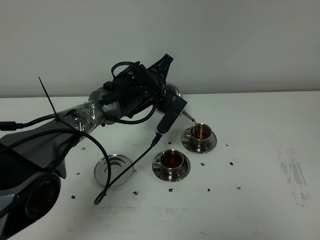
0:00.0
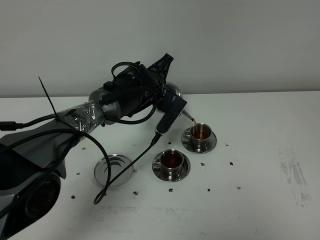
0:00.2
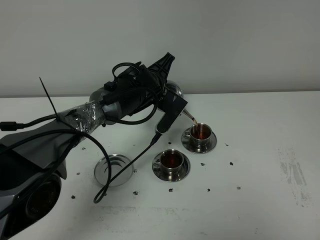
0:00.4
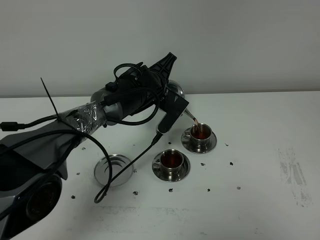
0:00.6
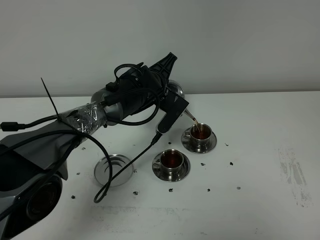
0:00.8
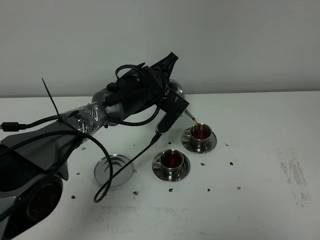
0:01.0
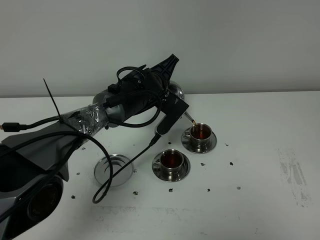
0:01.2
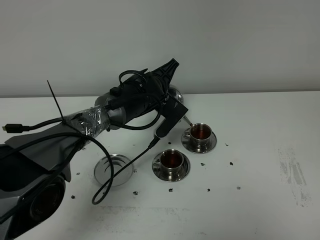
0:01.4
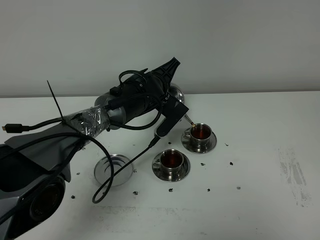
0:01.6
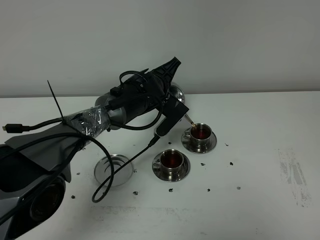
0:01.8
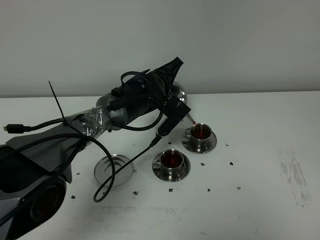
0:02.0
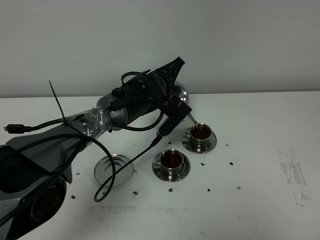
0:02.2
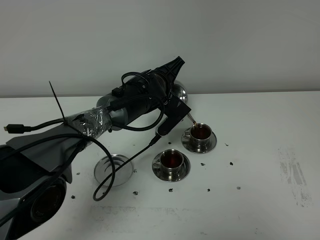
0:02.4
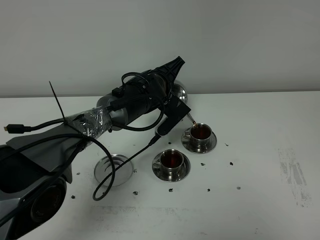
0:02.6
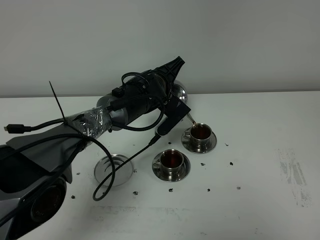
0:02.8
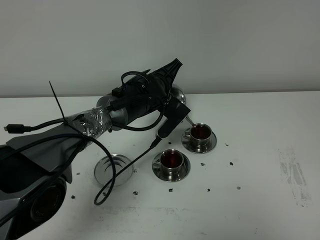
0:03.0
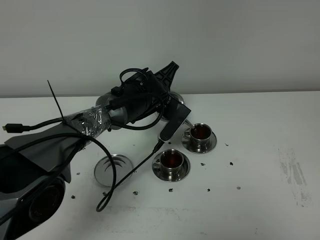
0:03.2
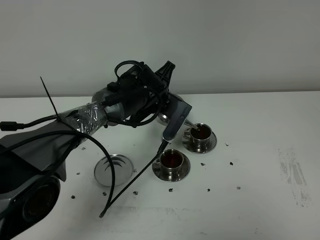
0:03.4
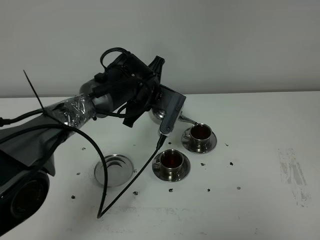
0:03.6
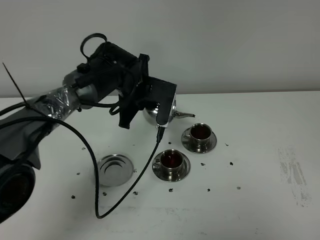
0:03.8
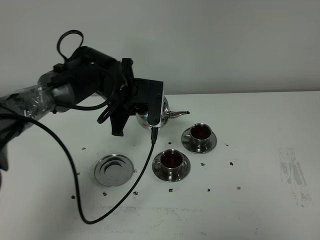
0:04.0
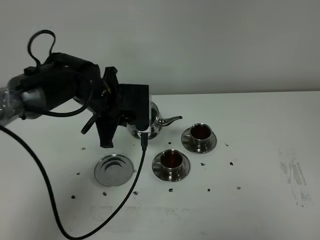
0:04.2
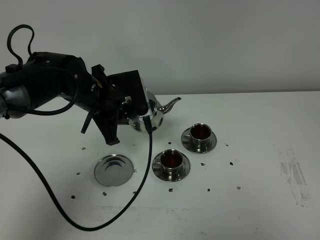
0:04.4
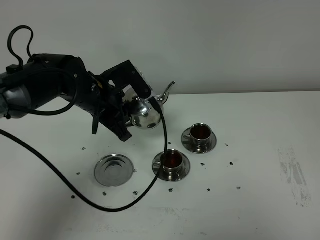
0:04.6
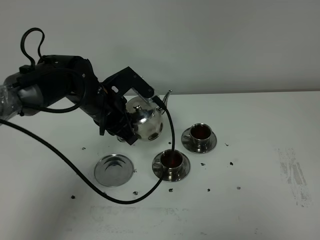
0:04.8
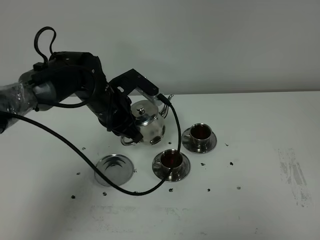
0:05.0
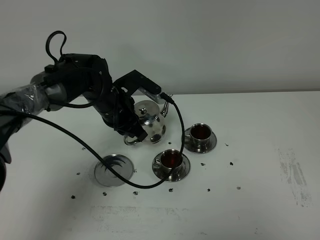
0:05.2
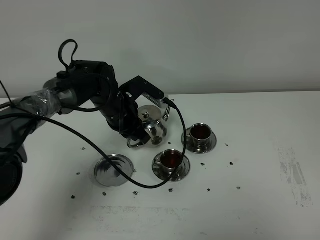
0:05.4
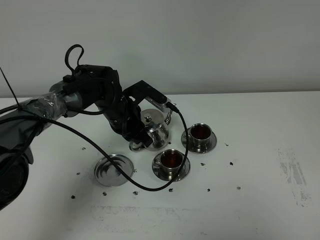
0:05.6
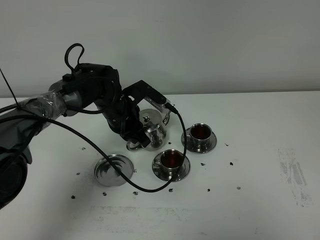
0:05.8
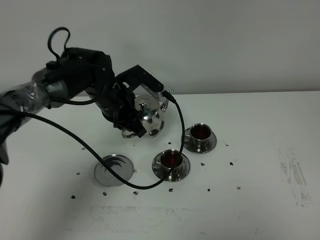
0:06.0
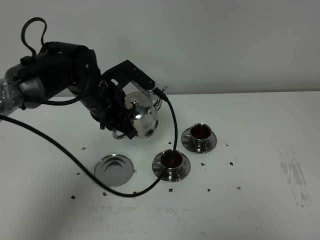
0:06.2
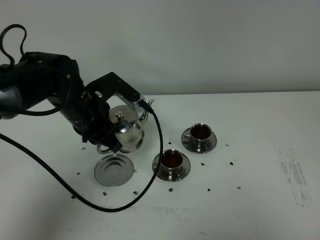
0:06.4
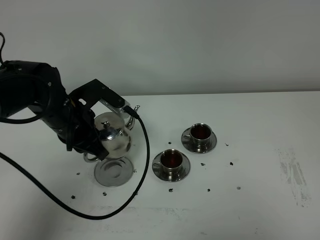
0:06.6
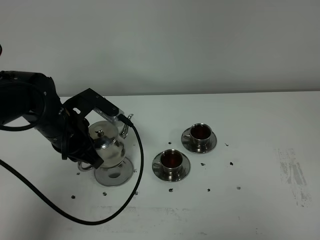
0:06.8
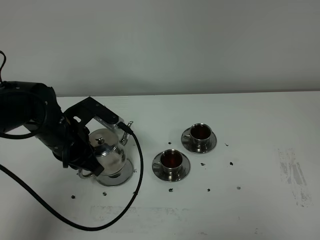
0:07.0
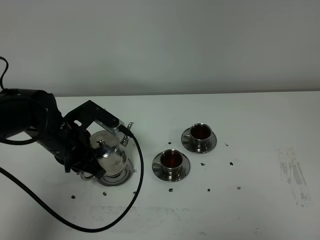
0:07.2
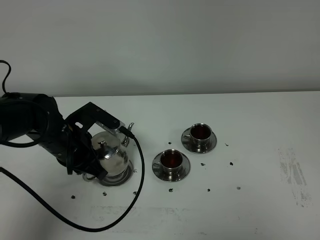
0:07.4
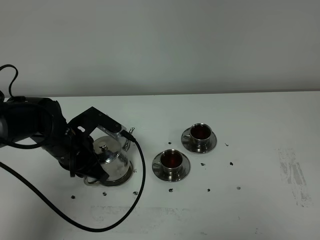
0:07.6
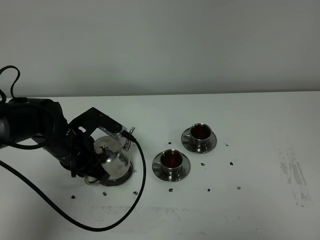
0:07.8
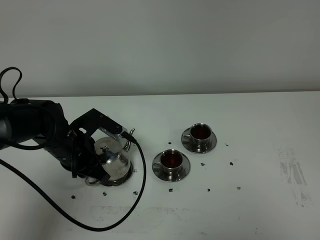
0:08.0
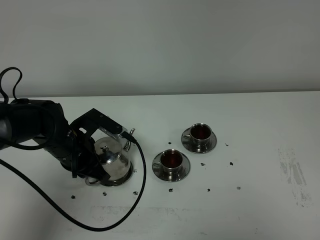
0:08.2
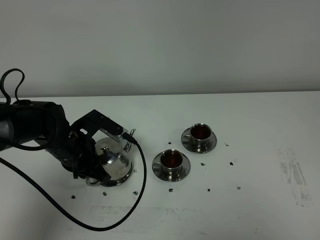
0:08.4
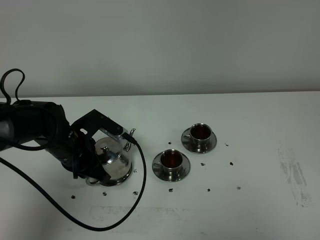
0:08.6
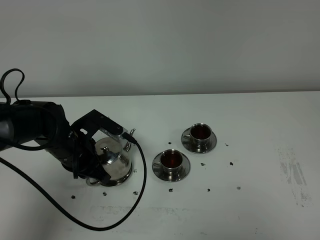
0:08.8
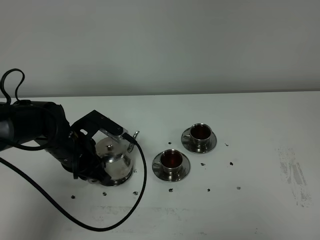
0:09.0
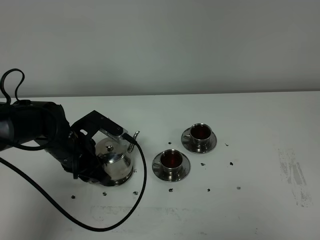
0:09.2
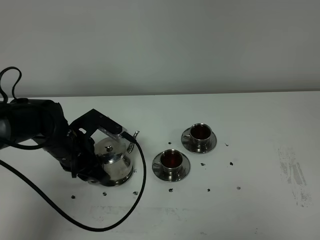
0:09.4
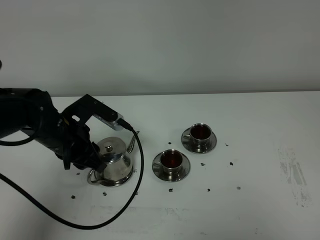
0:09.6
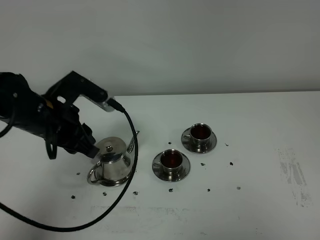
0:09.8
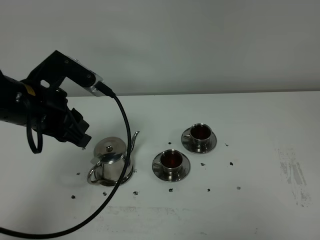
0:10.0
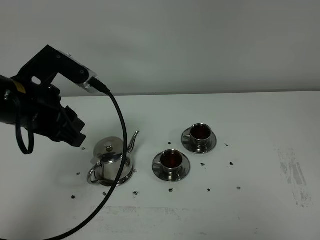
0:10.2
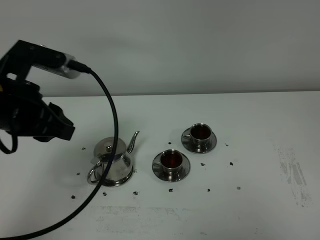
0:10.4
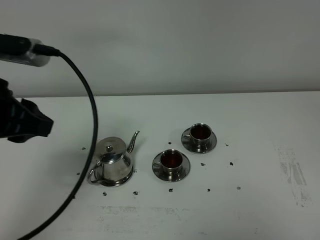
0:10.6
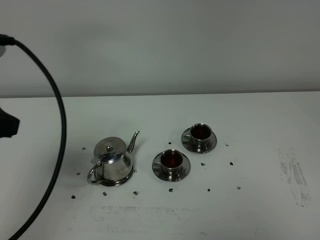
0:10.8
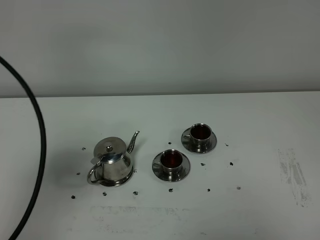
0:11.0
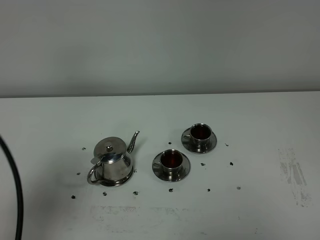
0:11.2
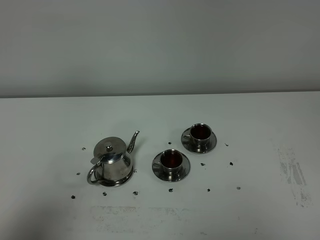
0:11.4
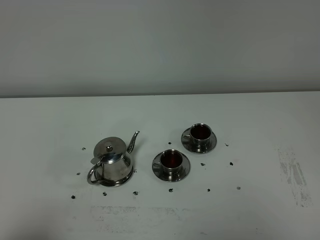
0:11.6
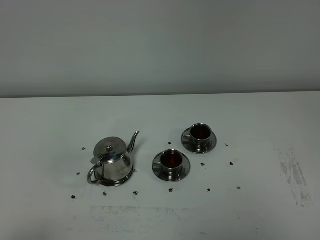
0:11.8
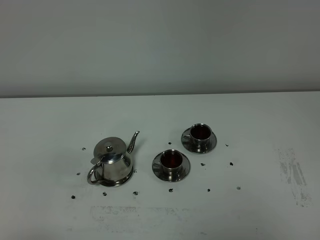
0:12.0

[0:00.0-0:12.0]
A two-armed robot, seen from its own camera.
Task of the whole recording: grasp the stainless steel teapot and pour the tea into the two stainless steel teacups one by one, put the stainless steel teapot back in its original place.
Step, 0:00.0 to 0:03.4: Pour tea into the teacup with the left gripper.
0:00.0 to 0:01.6: The grippers move only a little.
0:01.6 to 0:03.0: The two grippers keep their place.
0:03.0 to 0:04.4: The left gripper is displaced to the left, backward and upward by about 15 cm.
0:06.0 to 0:07.6: The left gripper heads backward and to the left, covering roughly 10 cm.
0:07.6 to 0:09.0: Both grippers stay put.
0:09.0 to 0:10.4: The left gripper heads upward and backward, covering about 20 cm.
0:10.4 to 0:12.0: The left gripper travels backward by approximately 25 cm.

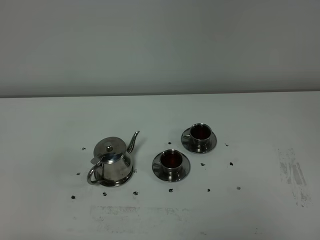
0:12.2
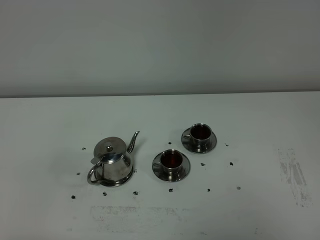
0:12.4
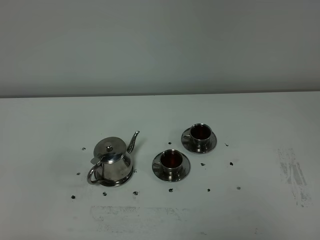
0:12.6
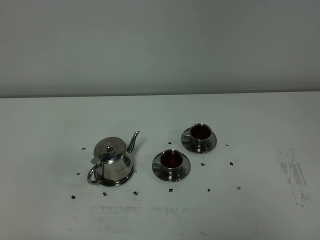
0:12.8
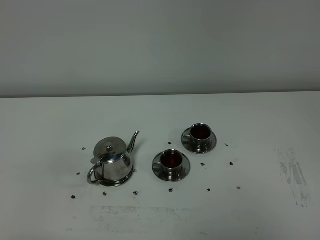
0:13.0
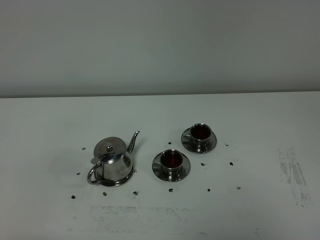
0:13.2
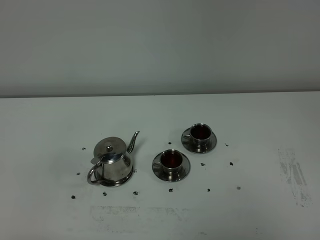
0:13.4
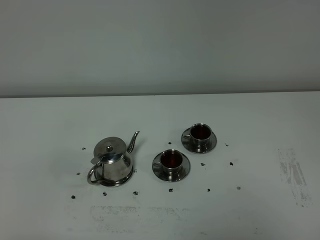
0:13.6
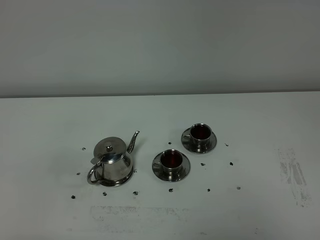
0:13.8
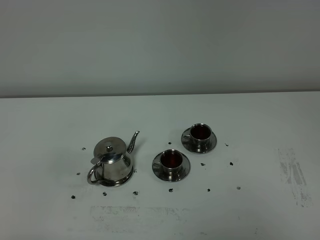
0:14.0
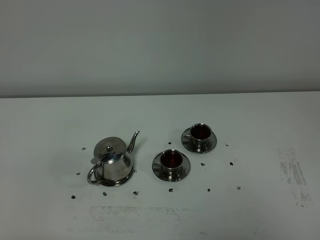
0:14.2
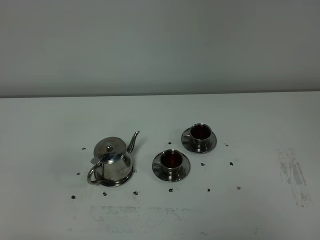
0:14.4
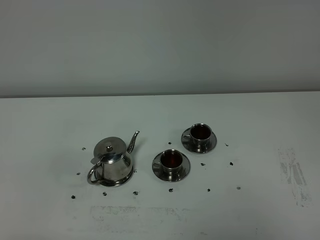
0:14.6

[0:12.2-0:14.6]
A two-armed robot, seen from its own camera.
Task of the whole recording: grasp the stainless steel teapot and pour the tea into the two stainless steel teacups one by one, put the stainless steel teapot back in its original place.
0:12.2 to 0:14.6: Neither gripper changes place.

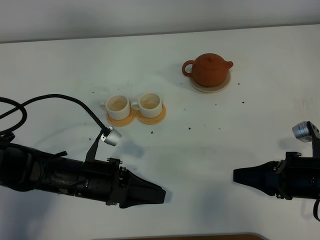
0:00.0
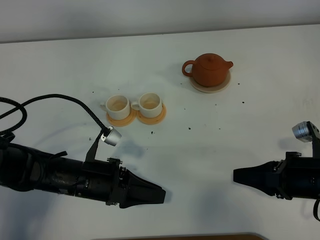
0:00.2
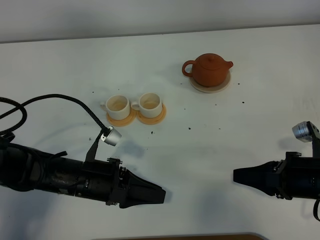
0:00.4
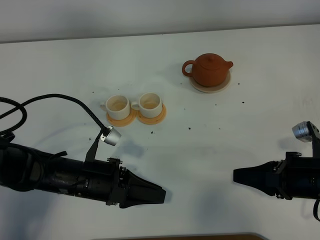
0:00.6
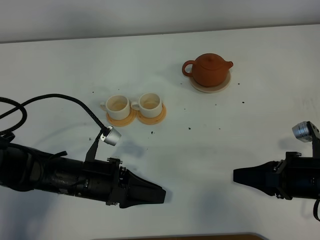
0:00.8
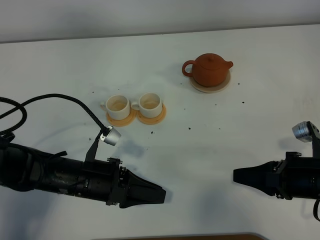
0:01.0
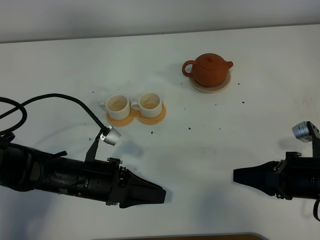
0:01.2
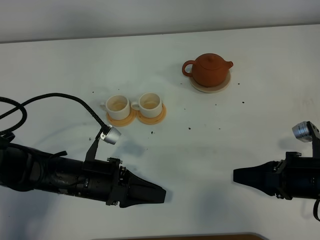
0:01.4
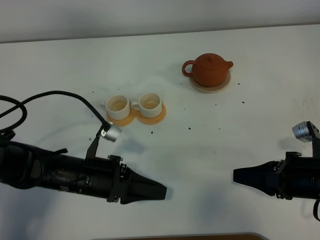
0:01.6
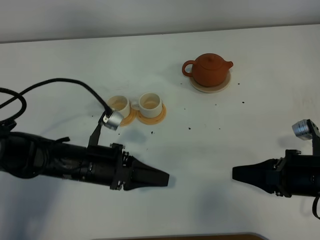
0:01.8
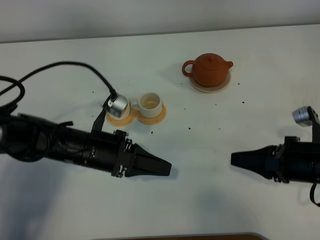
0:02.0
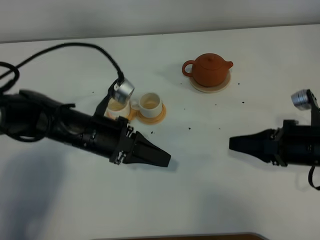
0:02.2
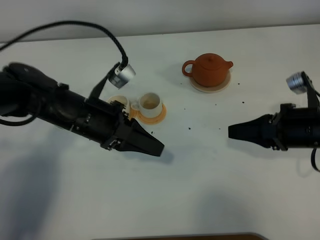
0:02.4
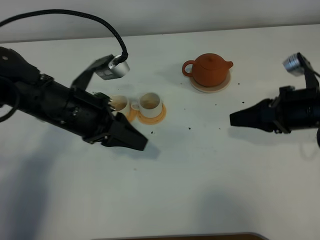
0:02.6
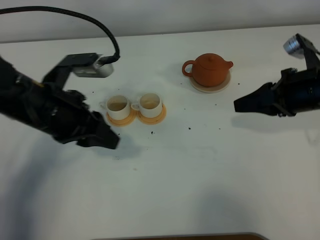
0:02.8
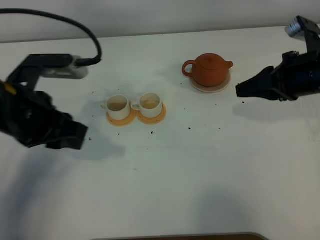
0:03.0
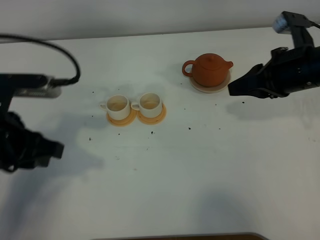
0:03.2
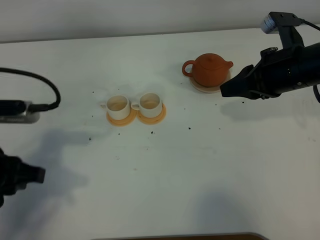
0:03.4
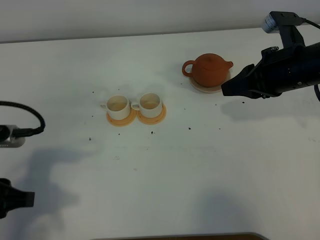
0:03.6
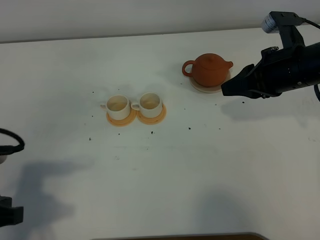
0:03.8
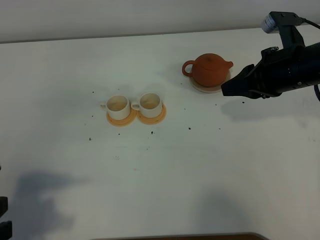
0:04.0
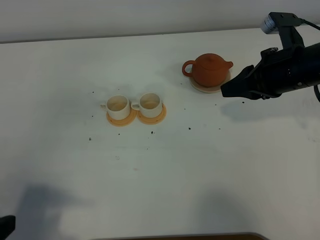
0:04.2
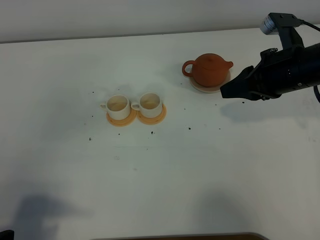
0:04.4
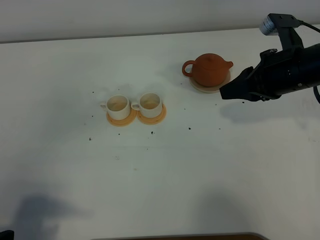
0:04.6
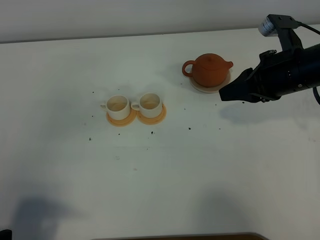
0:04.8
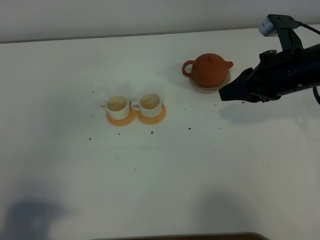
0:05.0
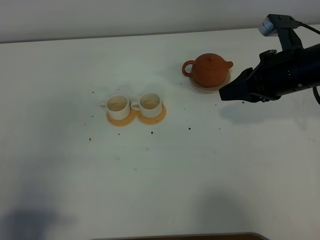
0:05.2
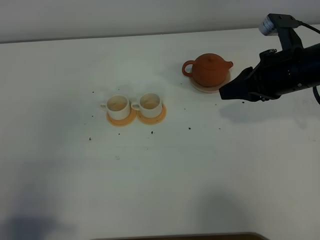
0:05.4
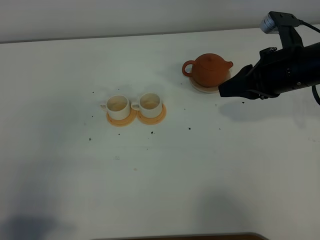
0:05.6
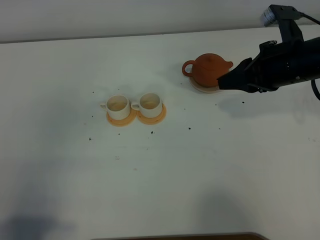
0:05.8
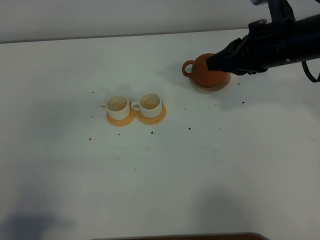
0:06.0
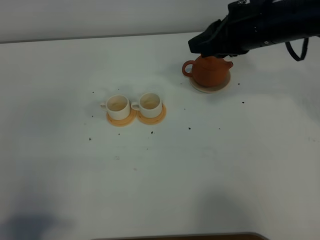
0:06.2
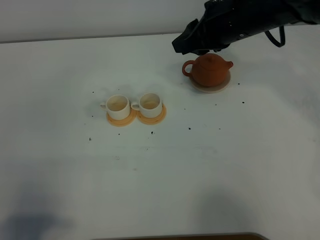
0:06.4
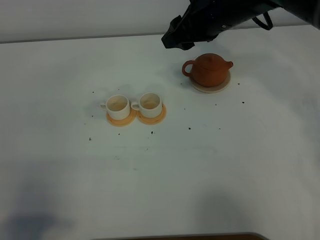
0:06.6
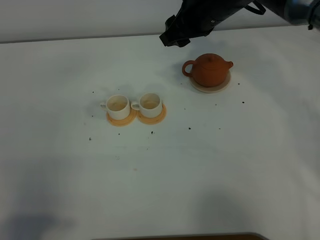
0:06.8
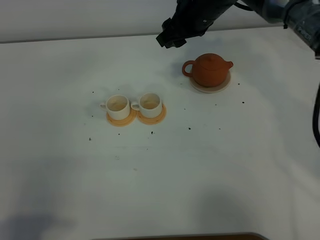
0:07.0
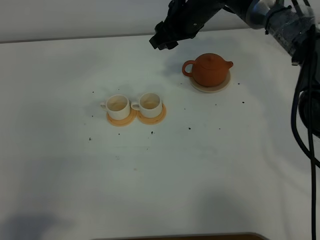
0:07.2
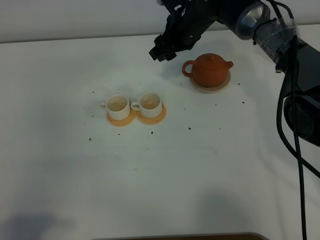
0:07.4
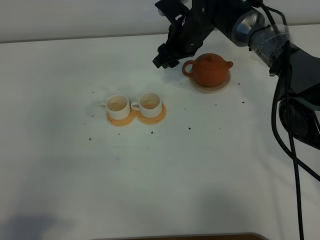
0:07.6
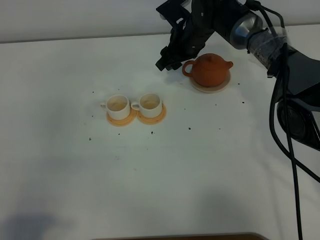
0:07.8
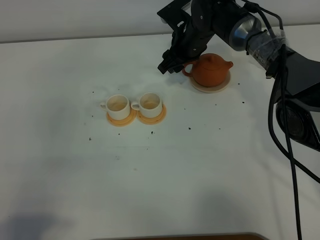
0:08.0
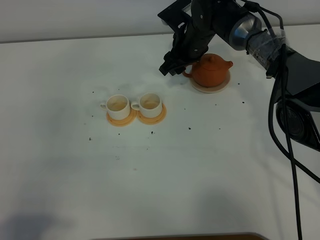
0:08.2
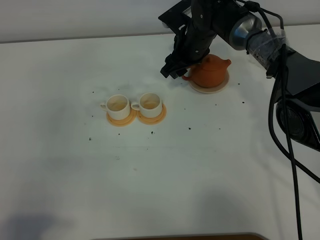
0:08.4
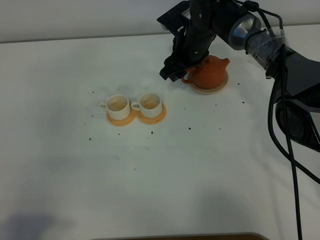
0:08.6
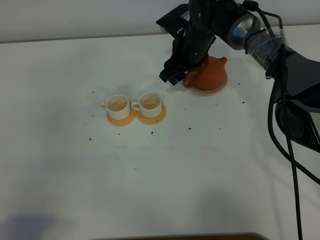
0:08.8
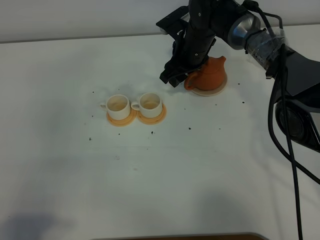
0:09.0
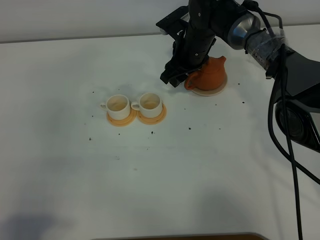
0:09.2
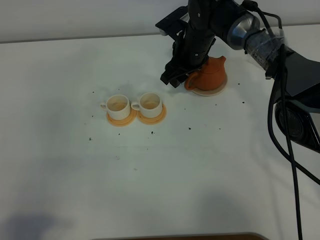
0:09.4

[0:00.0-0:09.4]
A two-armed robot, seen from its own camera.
Task of the whole recording: grasp the brown teapot and pour the tea into the two white teacups one by one, put the brown teapot back in its original place.
0:00.0 to 0:01.6: The two grippers keep their place.
0:01.6 to 0:03.2: The left gripper shifts some 20 cm upward and to the left, while the right gripper is displaced forward, upward and to the left by some 20 cm.
0:03.2 to 0:04.8: The left gripper moves backward, roughly 15 cm.
0:04.8 to 0:06.2: The right gripper moves to the left and upward, approximately 10 cm.
0:06.2 to 0:07.8: The right gripper travels downward, forward and to the left by about 20 cm, and opens up.
0:07.8 to 0:09.4: The grippers stay close to where they were, moving slightly.
